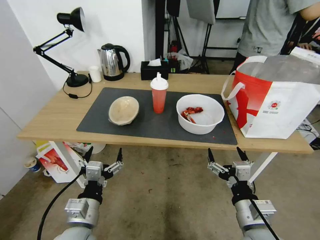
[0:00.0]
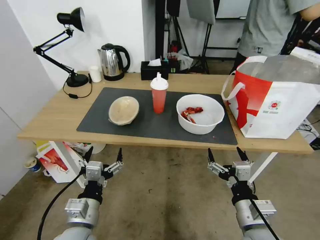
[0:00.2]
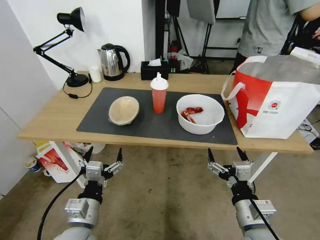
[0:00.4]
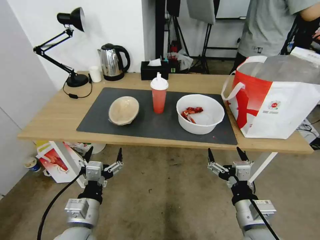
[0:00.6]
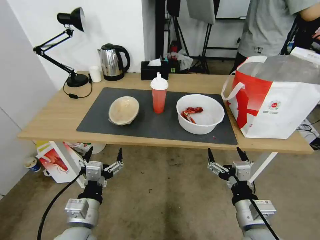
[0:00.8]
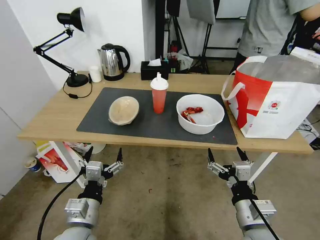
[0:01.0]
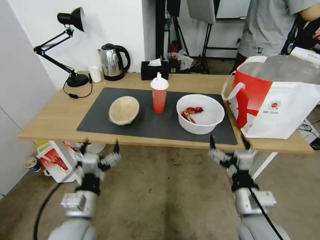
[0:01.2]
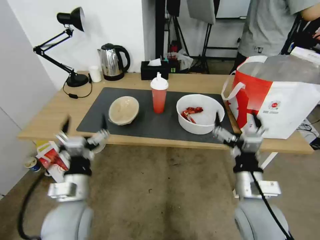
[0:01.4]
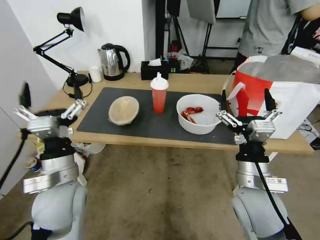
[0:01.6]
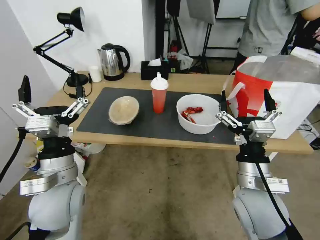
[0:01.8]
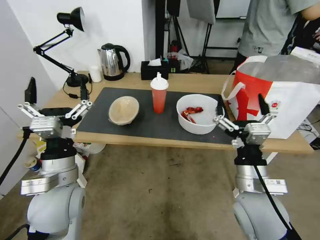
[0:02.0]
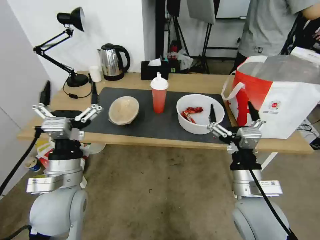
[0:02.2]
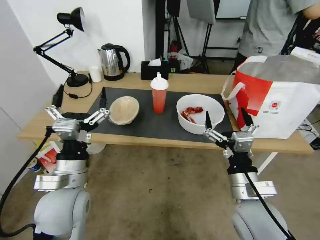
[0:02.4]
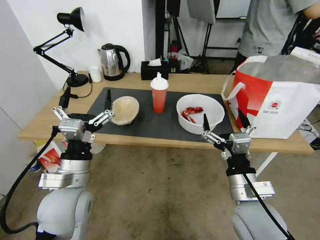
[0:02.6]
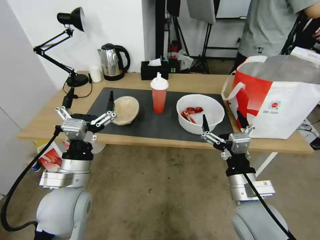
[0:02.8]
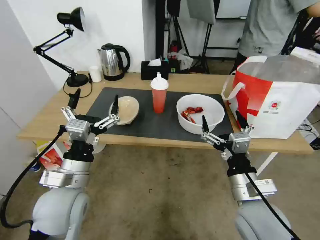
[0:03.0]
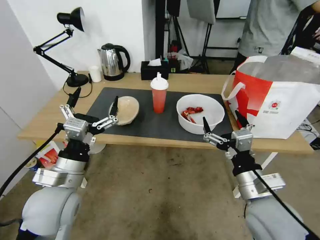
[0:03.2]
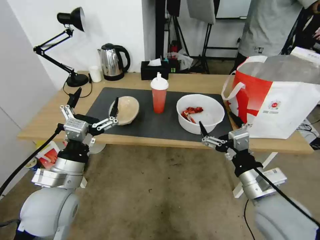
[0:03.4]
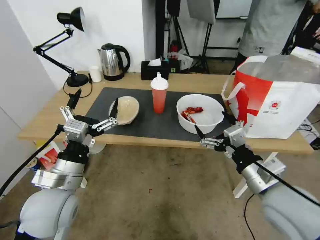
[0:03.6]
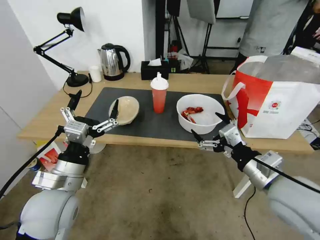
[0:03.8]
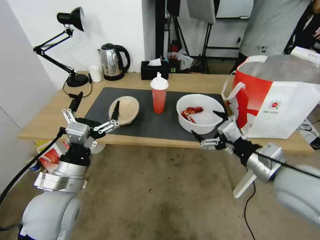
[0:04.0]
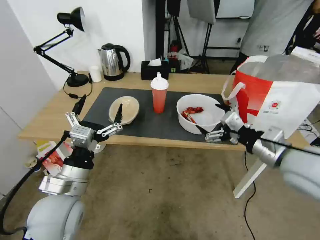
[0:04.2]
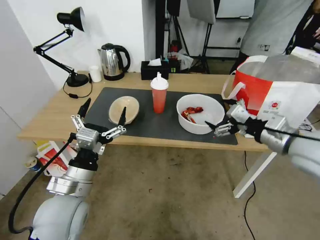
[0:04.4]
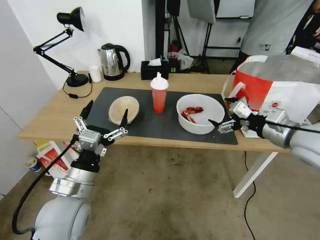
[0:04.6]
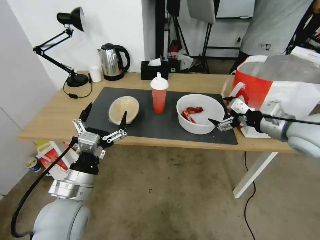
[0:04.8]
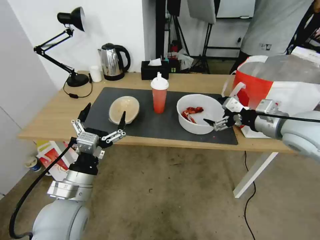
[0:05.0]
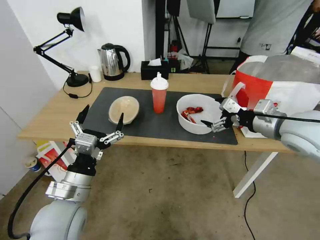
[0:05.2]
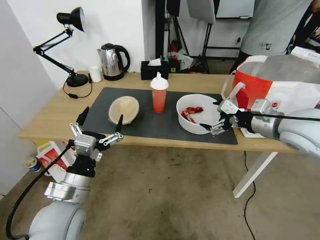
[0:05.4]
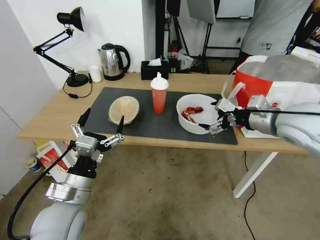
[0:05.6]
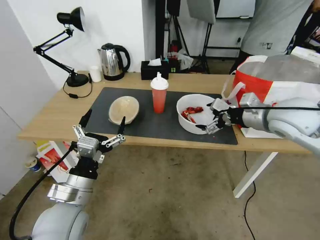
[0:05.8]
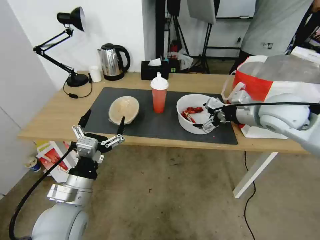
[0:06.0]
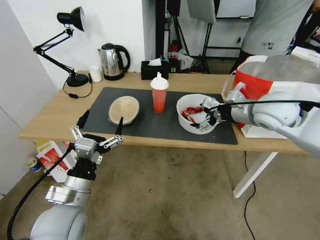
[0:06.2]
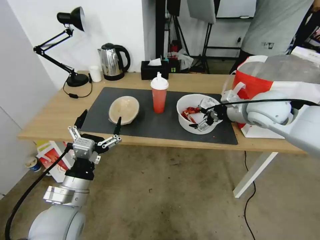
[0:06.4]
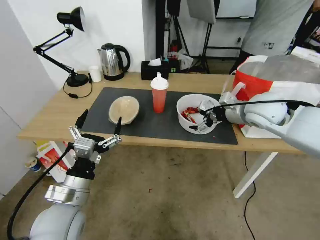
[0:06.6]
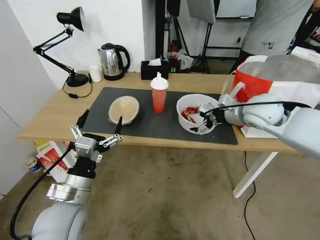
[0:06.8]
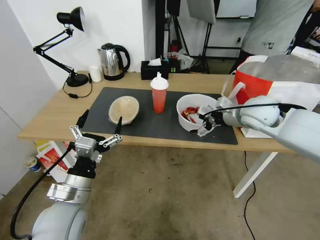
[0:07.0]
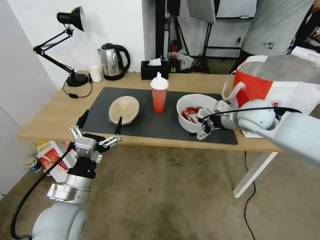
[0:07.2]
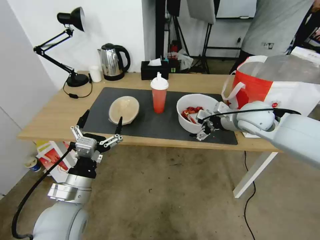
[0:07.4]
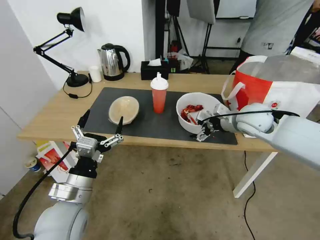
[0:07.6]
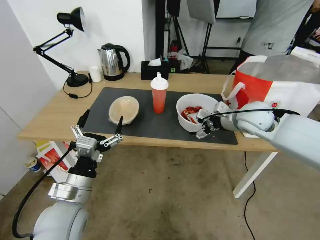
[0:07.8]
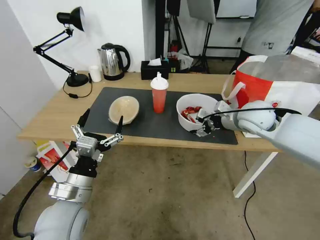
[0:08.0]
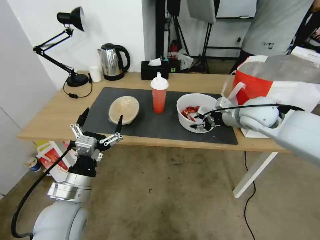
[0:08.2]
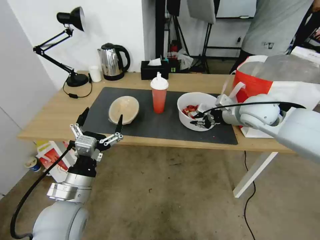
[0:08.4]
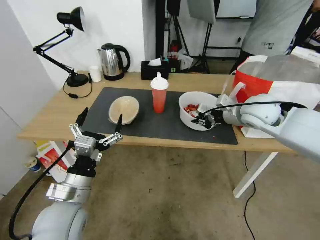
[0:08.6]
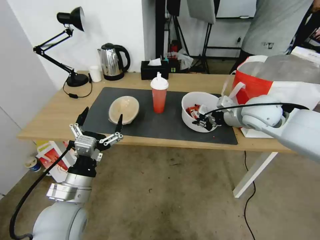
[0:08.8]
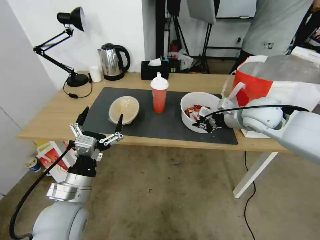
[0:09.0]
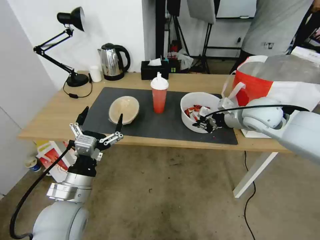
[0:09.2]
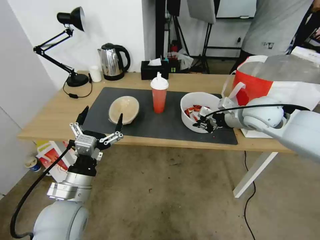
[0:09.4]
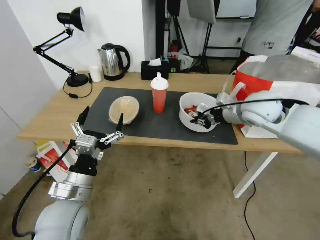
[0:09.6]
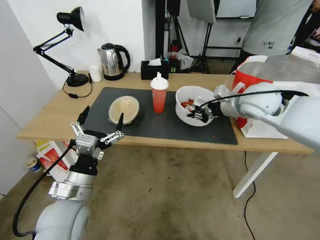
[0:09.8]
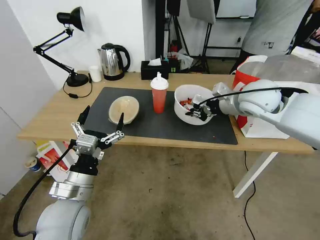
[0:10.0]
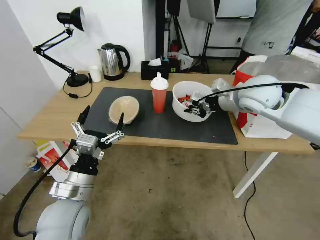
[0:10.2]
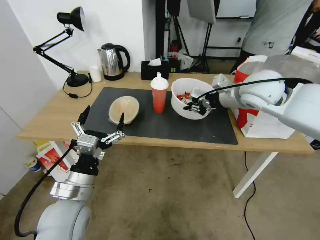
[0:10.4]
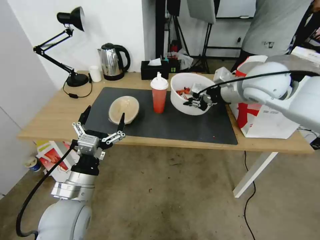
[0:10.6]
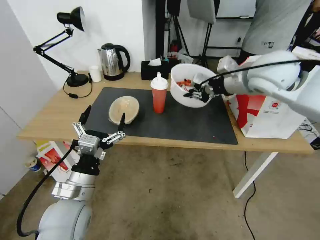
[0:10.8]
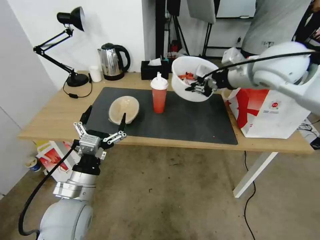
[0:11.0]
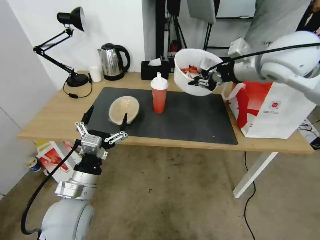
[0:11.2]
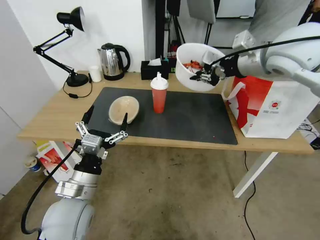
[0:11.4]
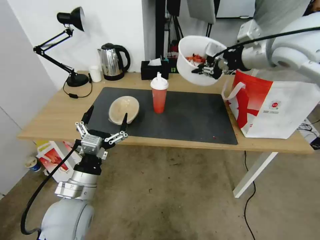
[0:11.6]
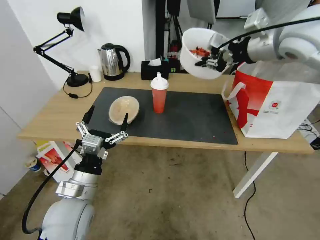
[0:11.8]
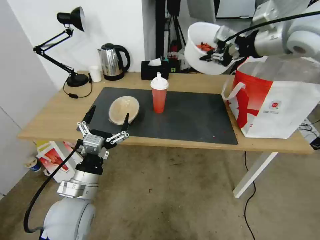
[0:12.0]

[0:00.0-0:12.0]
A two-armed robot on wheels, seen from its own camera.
Task of the whole recording: Pick up the trash from the table and place it into the takeout bag.
0:03.0 to 0:04.4: The right gripper is displaced to the right, upward and forward by approximately 20 cm.
0:04.4 to 0:06.0: The right gripper shifts roughly 10 cm forward.
0:06.0 to 0:07.6: The right gripper travels downward by some 5 cm.
0:07.6 to 0:09.0: The right gripper closes up.
0:09.0 to 0:10.4: The right gripper goes roughly 10 cm upward.
0:10.4 to 0:12.0: The right gripper heads upward, covering some 15 cm.

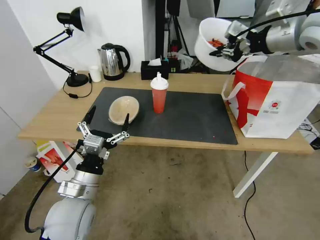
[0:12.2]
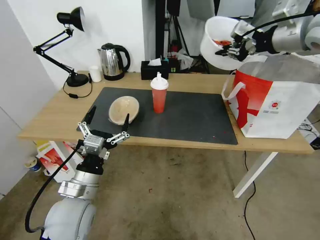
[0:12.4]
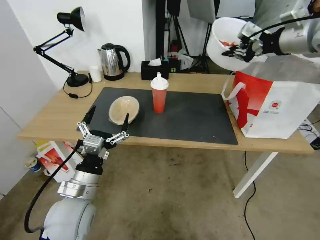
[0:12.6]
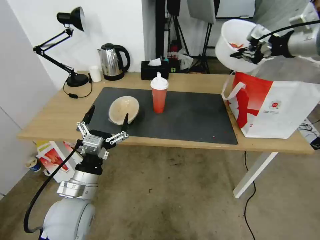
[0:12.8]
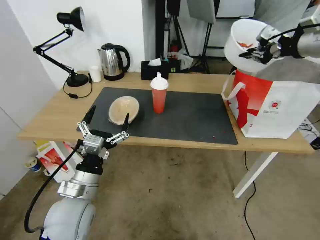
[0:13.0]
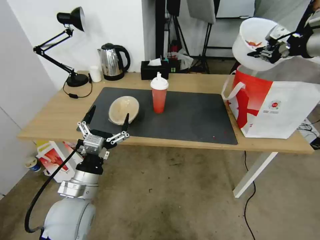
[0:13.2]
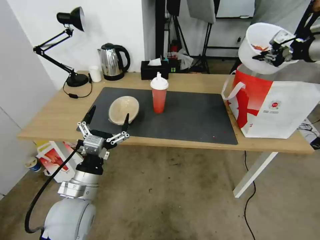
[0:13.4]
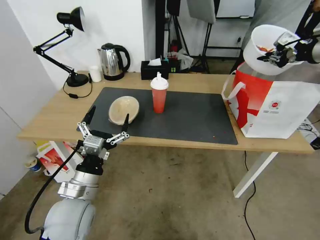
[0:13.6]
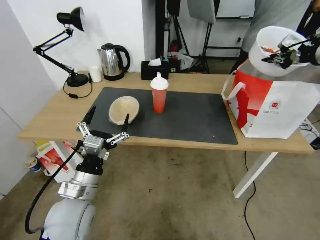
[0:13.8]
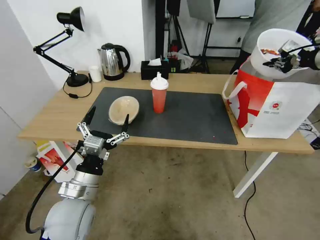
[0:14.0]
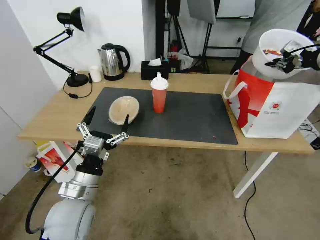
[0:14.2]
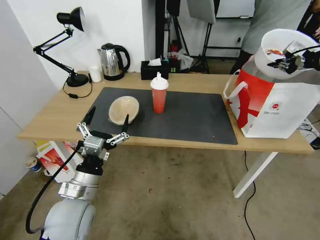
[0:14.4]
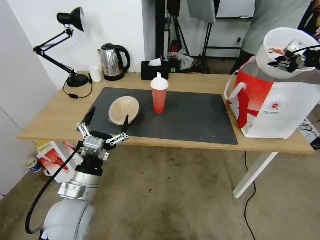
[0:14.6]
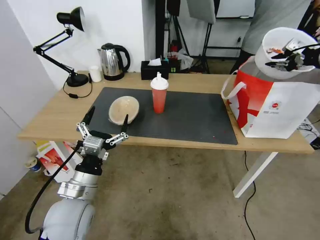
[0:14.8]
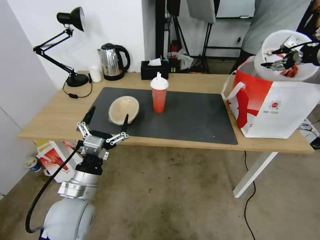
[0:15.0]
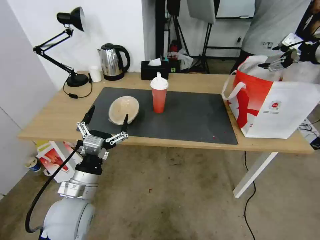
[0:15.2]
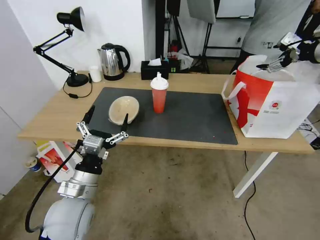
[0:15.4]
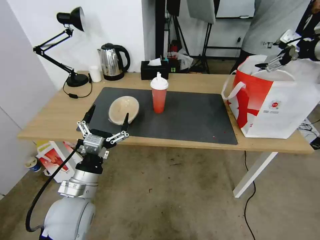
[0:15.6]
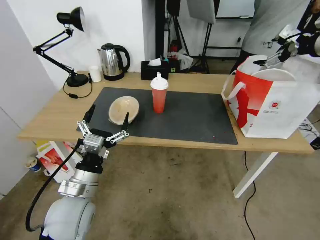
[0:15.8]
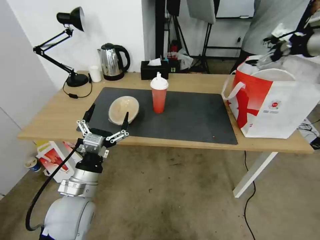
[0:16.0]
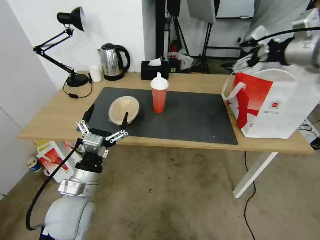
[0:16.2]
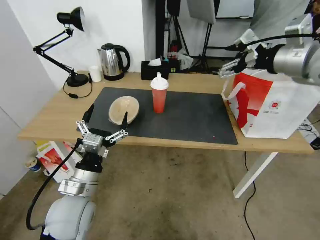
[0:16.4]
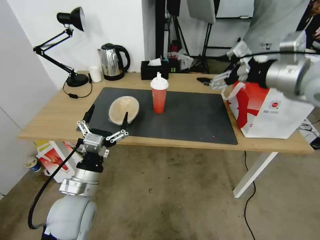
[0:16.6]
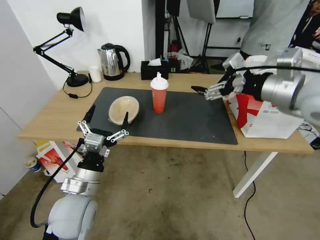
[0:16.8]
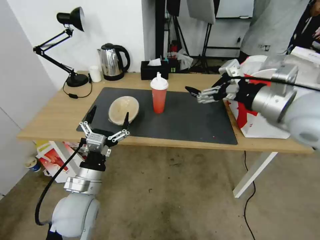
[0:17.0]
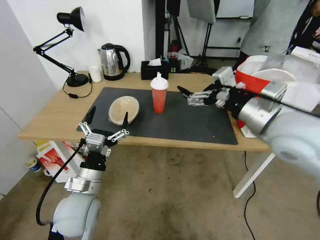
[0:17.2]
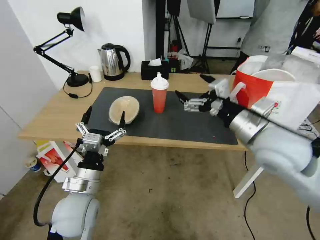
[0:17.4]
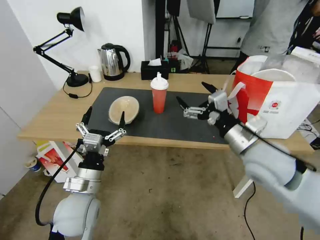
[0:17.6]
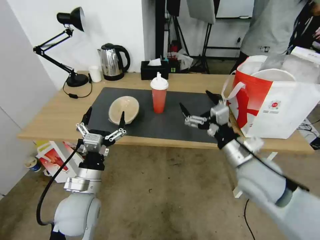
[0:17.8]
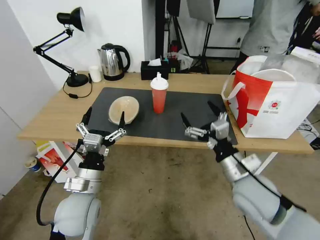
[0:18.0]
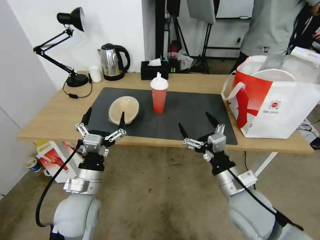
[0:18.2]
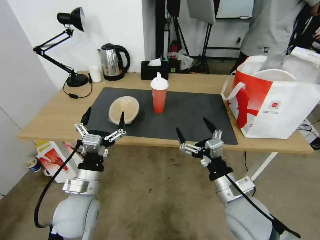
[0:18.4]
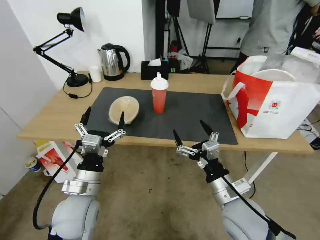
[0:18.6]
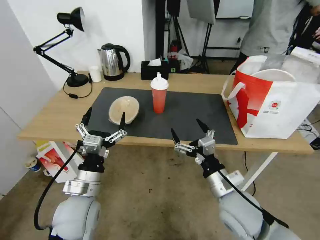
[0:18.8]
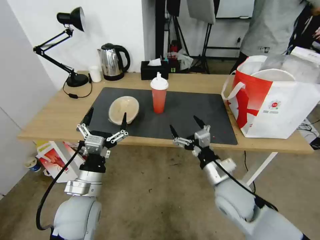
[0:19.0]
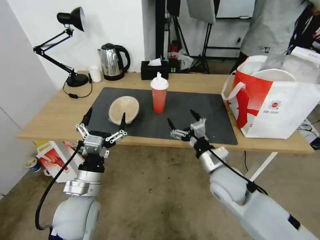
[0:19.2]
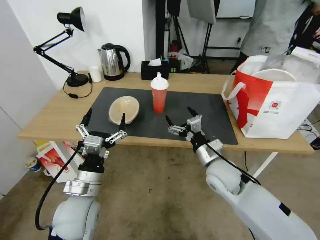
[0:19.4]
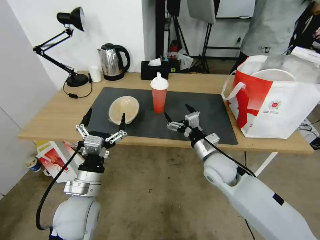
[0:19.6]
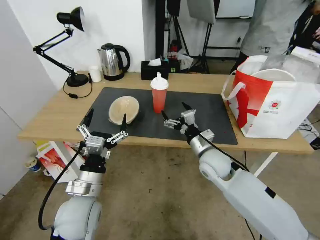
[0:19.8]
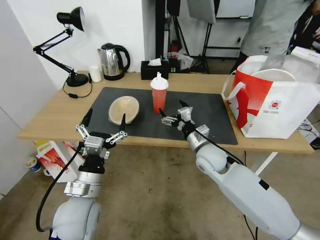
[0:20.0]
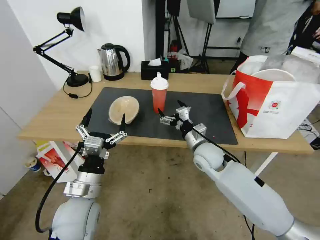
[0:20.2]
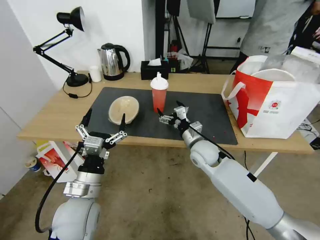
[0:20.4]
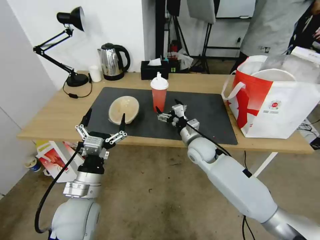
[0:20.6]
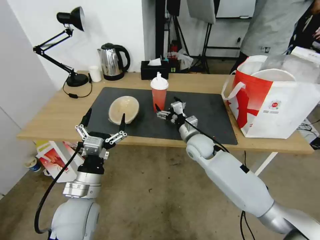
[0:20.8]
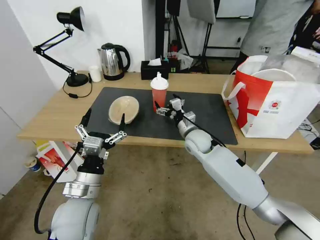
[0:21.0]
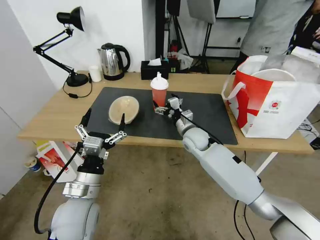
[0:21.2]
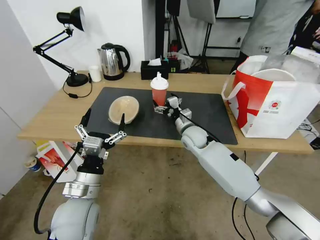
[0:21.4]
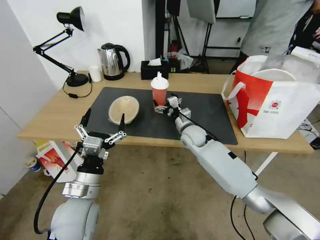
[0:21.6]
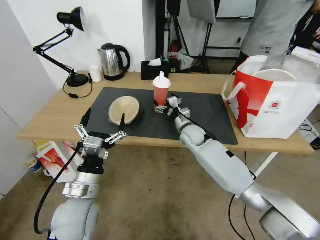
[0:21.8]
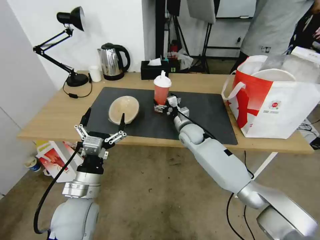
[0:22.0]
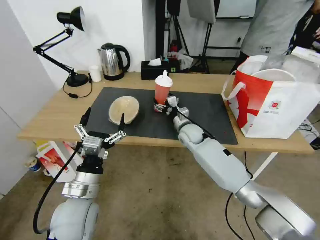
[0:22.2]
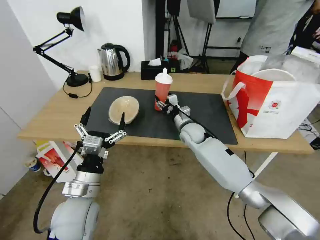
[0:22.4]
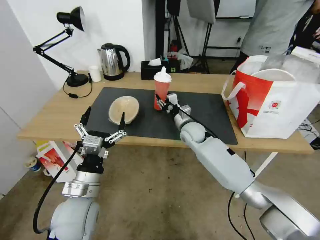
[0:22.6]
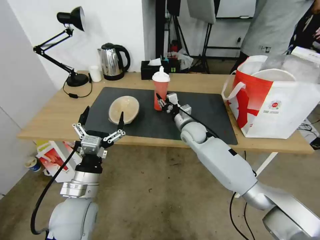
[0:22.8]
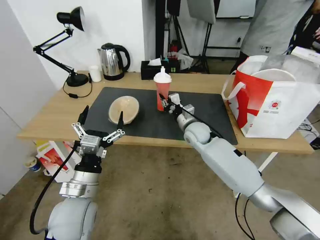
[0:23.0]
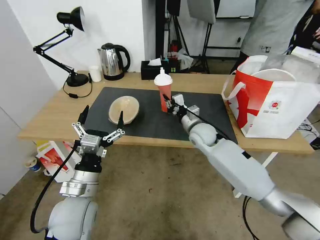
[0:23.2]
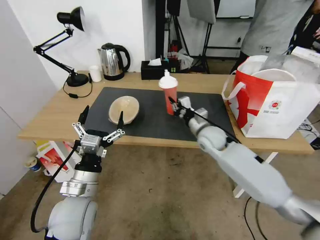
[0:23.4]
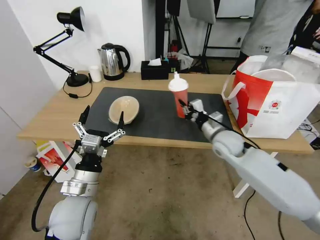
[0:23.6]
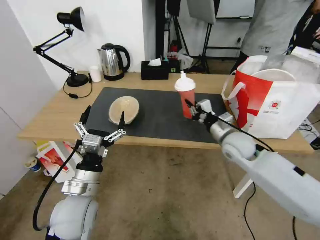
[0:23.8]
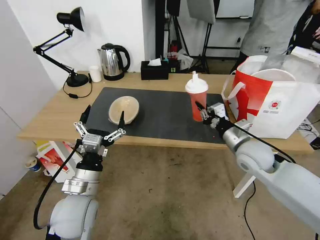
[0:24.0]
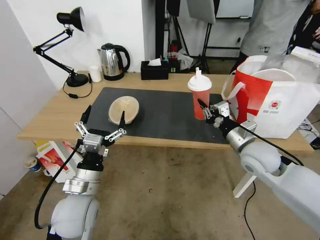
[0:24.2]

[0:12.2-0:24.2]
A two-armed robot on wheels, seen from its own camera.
Task of the whole recording: Pick up the trash from the table and place it into the takeout bag.
0:12.2 to 0:13.8: The right gripper heads to the right, covering about 15 cm.
0:13.8 to 0:15.2: The right gripper opens up.
0:15.2 to 0:16.6: The right gripper is displaced to the left and backward by some 20 cm.
0:16.6 to 0:18.2: The right gripper shifts some 30 cm downward and backward.
0:18.2 to 0:19.8: The right gripper shifts roughly 15 cm forward.
0:19.8 to 0:21.2: The right gripper goes approximately 10 cm forward.
0:21.2 to 0:22.6: The right gripper closes.
0:22.6 to 0:24.2: The right gripper moves to the right, backward and upward, roughly 25 cm, and closes.
